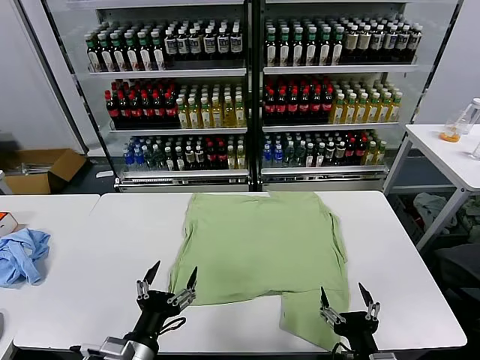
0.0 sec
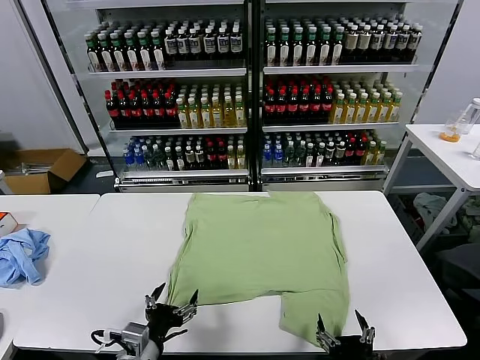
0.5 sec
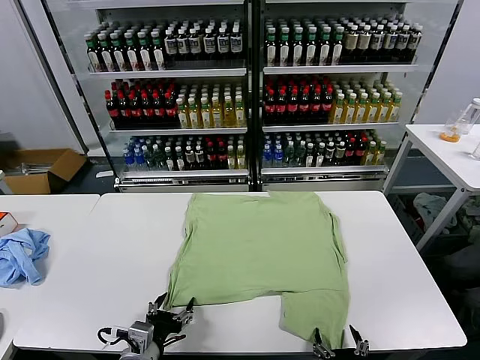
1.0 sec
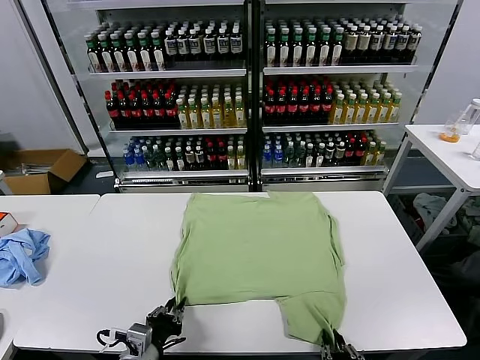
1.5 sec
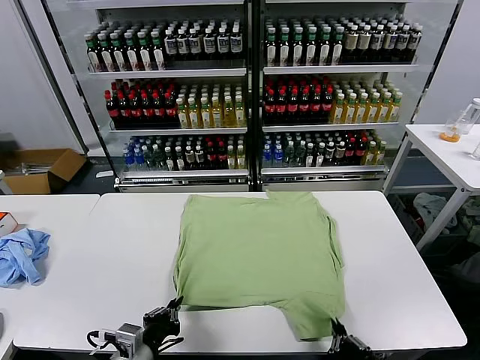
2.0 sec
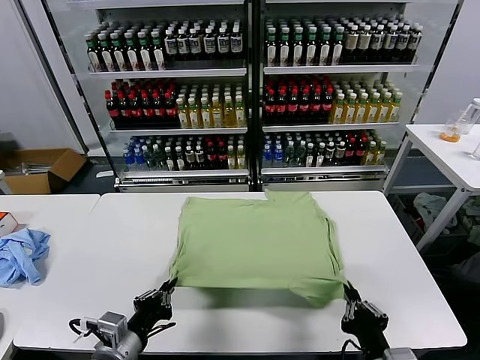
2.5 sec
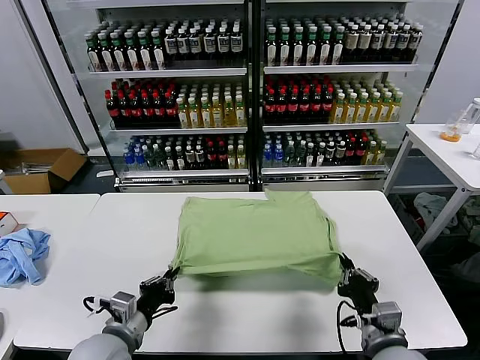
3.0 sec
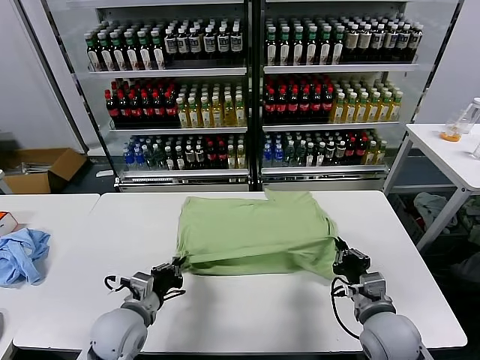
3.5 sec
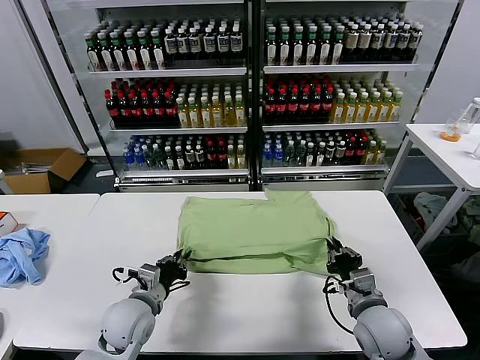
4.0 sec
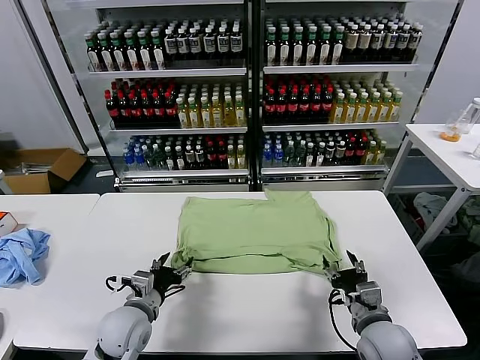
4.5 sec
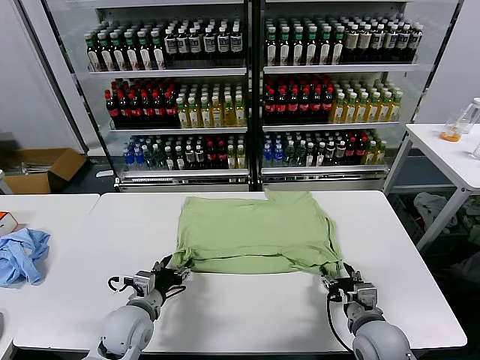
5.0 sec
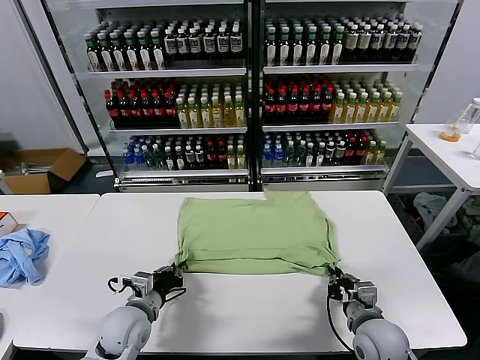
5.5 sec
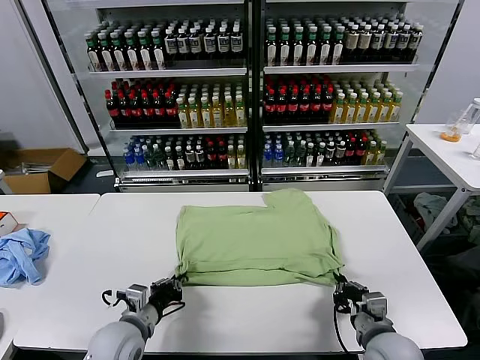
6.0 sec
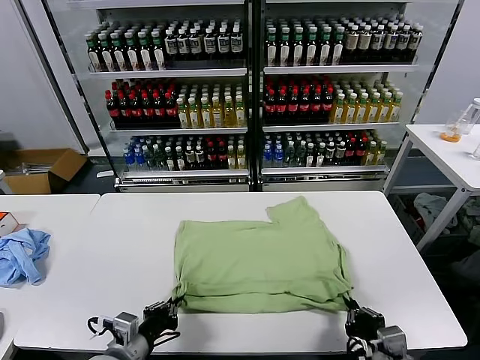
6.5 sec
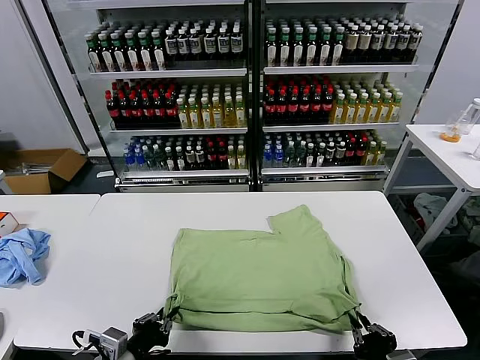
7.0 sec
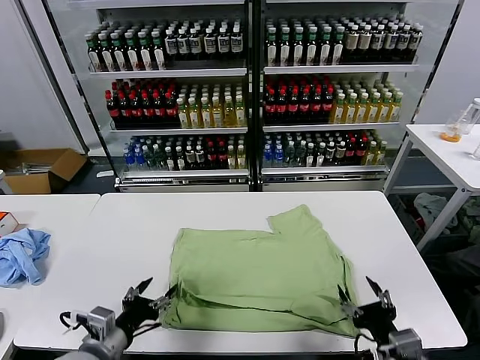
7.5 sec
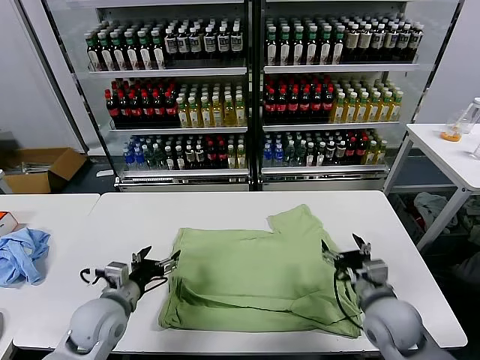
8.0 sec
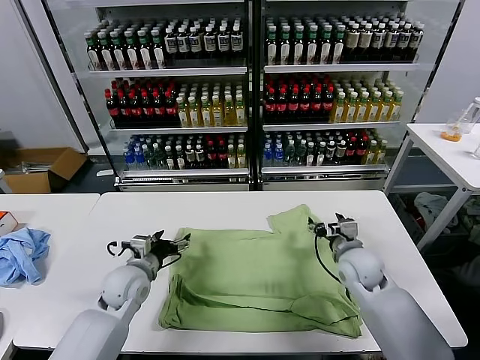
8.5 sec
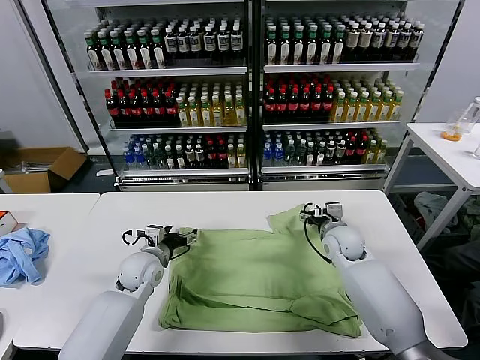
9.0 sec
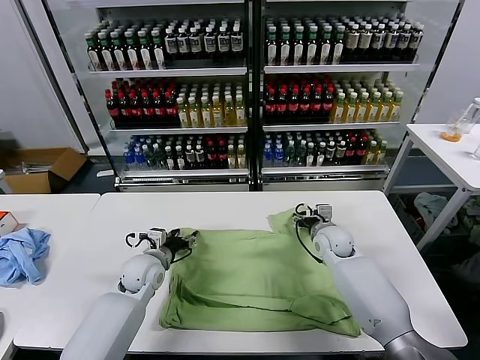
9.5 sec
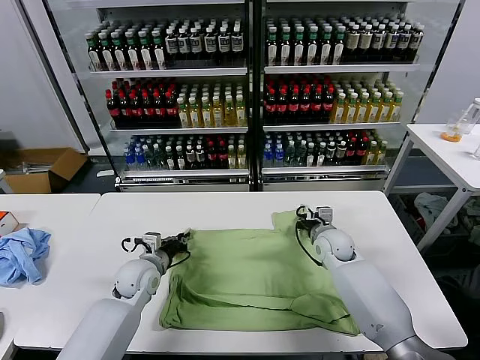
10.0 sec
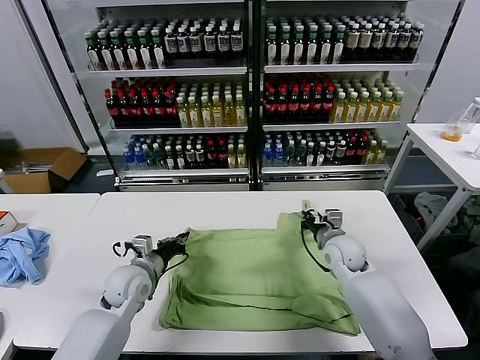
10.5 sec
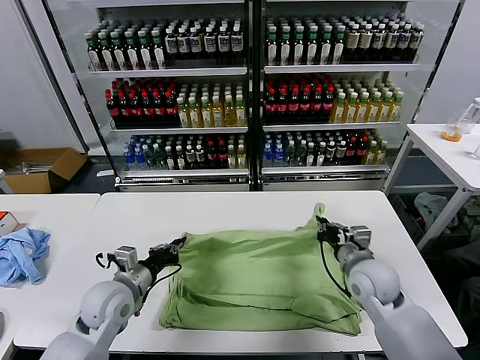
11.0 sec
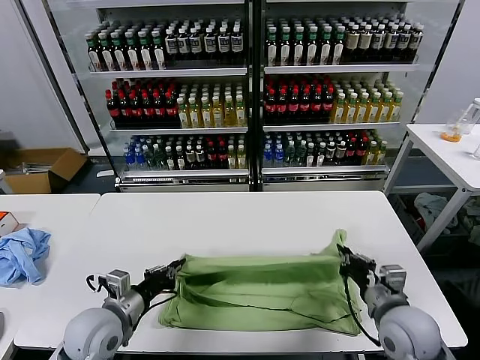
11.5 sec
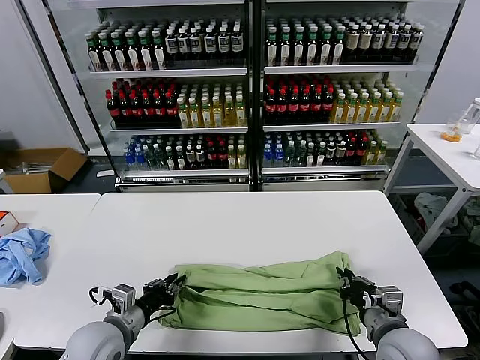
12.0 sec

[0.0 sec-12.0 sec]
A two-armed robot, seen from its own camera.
Task of the whole recording: fold and organize the clothes.
Step, 0.0 sec to 1.5 sec: use both grippers simultaneously to clamp the lower edge of the clothing fabric.
Step, 2.0 sec to 4.0 sec: use both grippers to drag the lower edge of the fabric forward and fold it over the upper edge.
Step, 5.0 sec to 7.0 sec: Drag the clothes downward with both gripper.
Step, 7.5 sec to 10.0 sec: use both grippers simultaneously to clamp the upper edge of the clothing fabric.
2.0 sec to 4.0 sec: Both grippers travel together forward, roughly 15 cm. The right gripper opens.
4.0 sec to 6.0 sec: Both grippers travel together backward, roughly 5 cm. The left gripper opens and closes again. Meanwhile the right gripper closes up.
6.0 sec to 8.0 sec: The right gripper moves forward, roughly 10 cm, and opens. Meanwhile the left gripper moves about 10 cm backward and comes back, and opens up.
8.0 sec to 10.0 sec: The right gripper heads forward, covering about 20 cm, and closes up; the left gripper goes some 10 cm forward, and closes up.
10.0 sec to 12.0 sec: The left gripper is displaced backward by about 15 cm. The right gripper is displaced backward by roughly 25 cm.

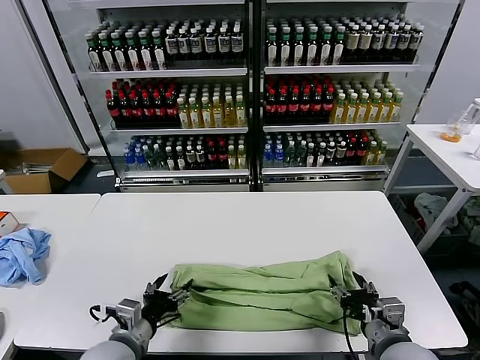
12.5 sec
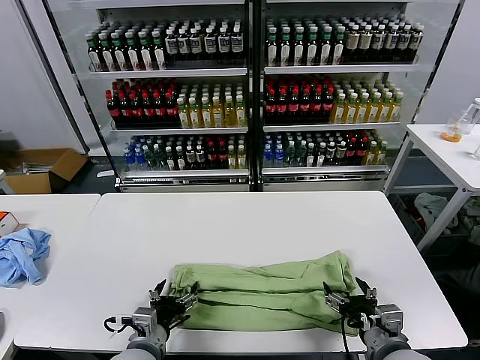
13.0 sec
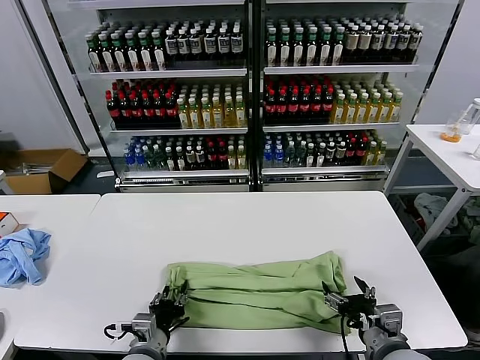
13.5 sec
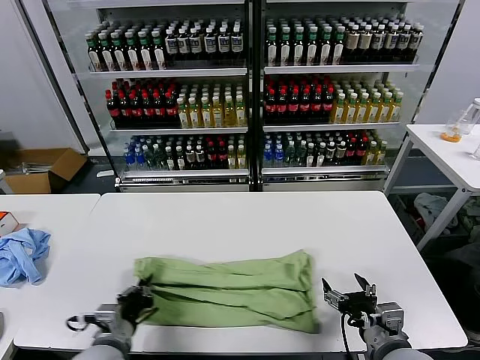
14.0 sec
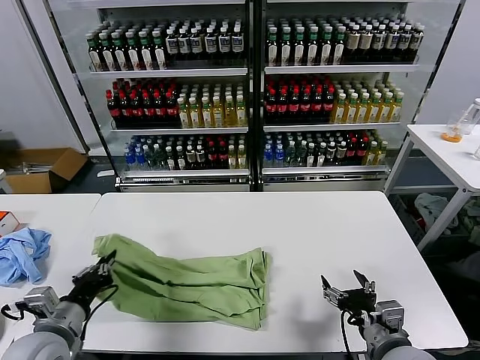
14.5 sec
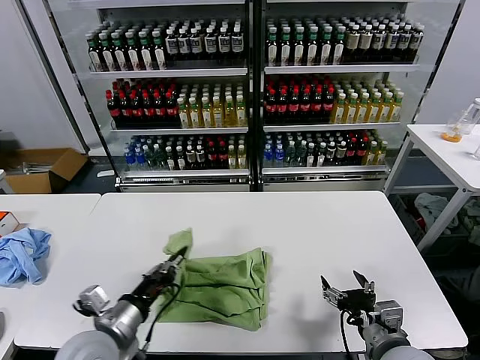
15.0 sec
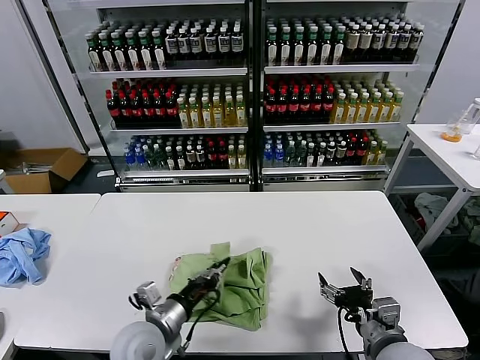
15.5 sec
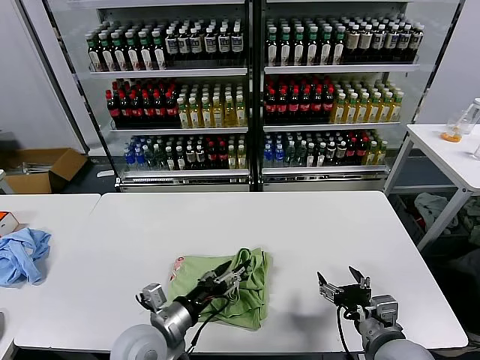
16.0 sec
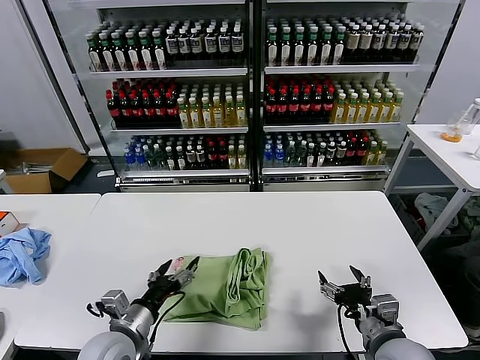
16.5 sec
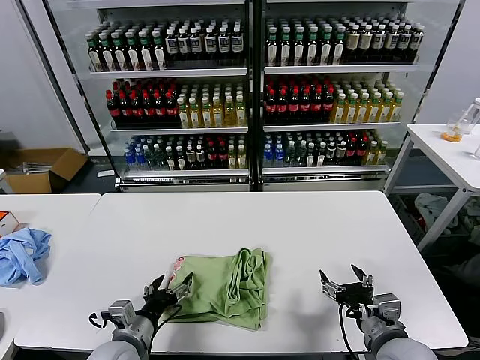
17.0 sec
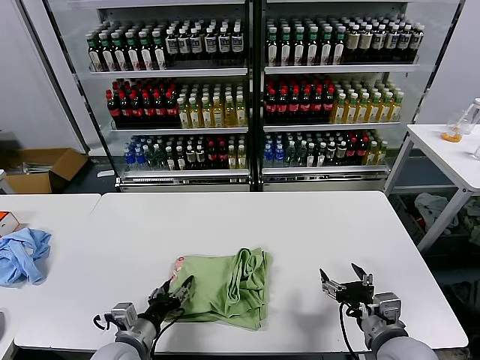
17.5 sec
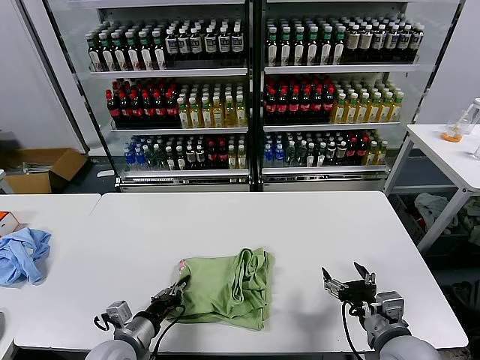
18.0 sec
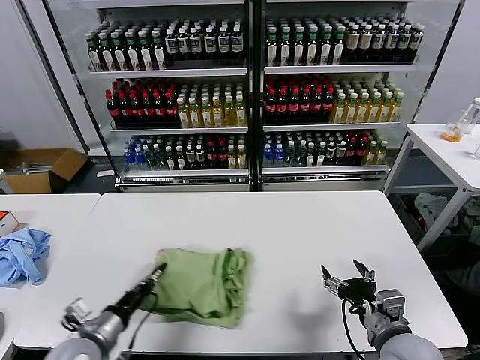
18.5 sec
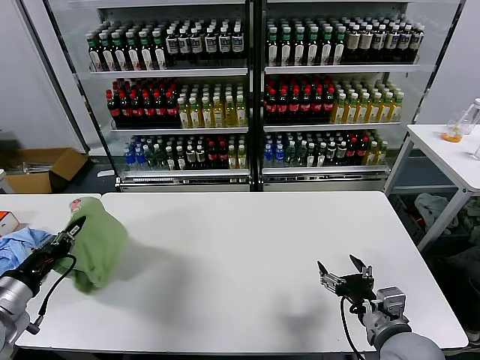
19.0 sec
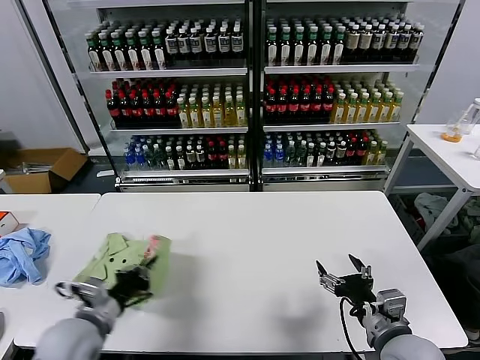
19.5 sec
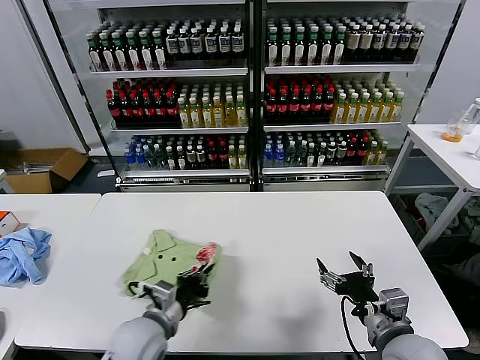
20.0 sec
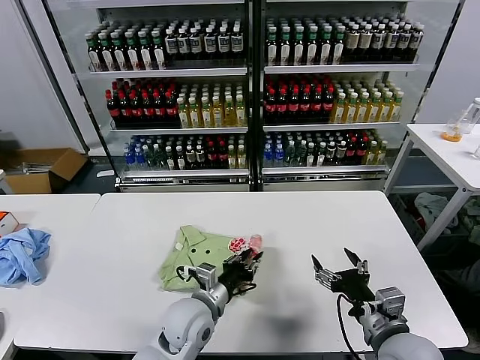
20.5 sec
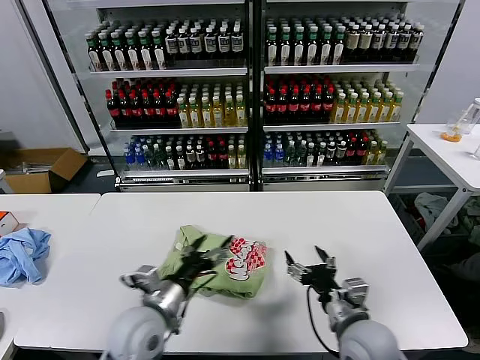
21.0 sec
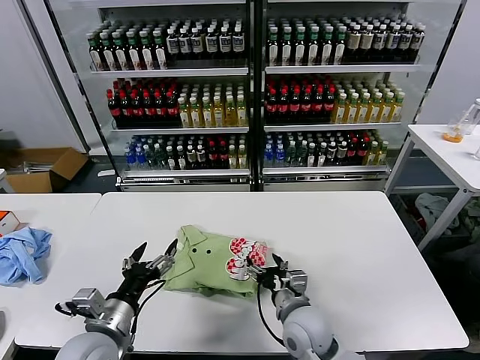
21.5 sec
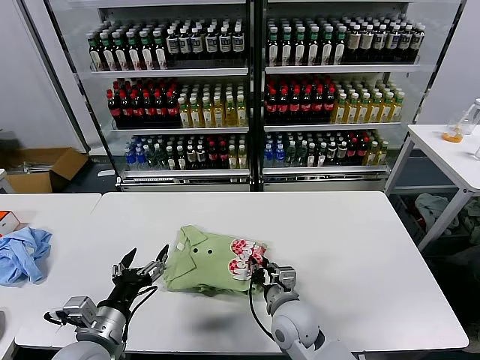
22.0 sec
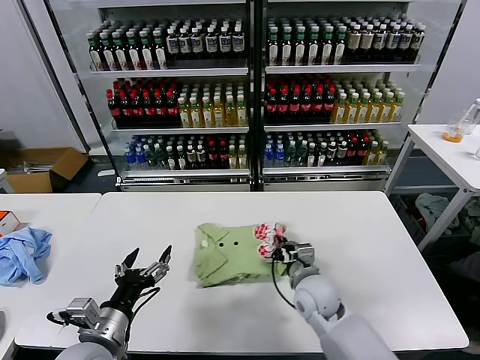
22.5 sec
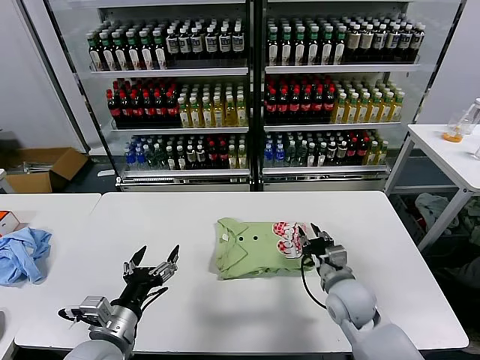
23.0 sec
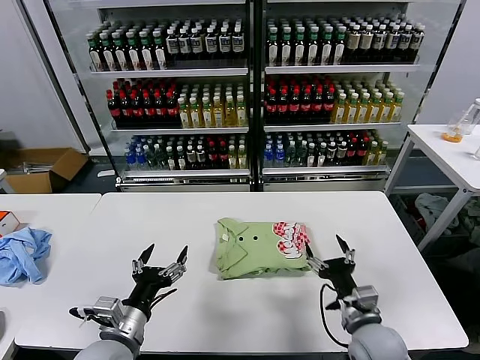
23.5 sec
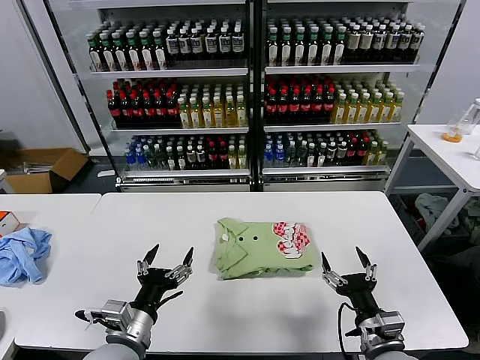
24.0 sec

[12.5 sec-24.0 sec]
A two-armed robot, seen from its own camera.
Task of the whole recording: fold and organize the clothes.
Step, 13.0 sec to 13.5 sec: use the left gripper to clamp the left edge of the fabric.
Step, 14.0 sec to 15.5 sec: use the left gripper to drag the left edge of the fabric to the left and folds it over the right edge.
Step, 16.5 sec to 20.5 sec: Flip the folded clothes over with left gripper.
Step, 21.0 sec to 23.0 sec: Drag the clothes to the center of the table.
12.5 sec to 14.5 sec: The left gripper heads to the left and upward, covering approximately 10 cm, and closes its fingers.
14.5 sec to 16.5 sec: The left gripper goes about 10 cm to the right and downward, and opens.
16.5 sec to 18.5 sec: The left gripper heads to the left, covering roughly 5 cm, and closes.
18.5 sec to 20.0 sec: The left gripper shifts about 10 cm to the right.
20.0 sec to 22.0 sec: The left gripper travels to the left and backward by approximately 10 cm, and opens its fingers. The right gripper shifts some 20 cm to the left, forward and downward, and closes.
22.0 sec to 24.0 sec: The right gripper goes roughly 20 cm to the right and backward, and opens.
